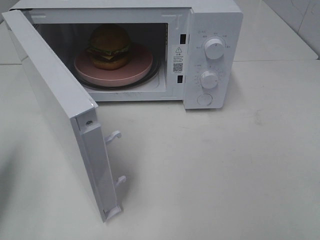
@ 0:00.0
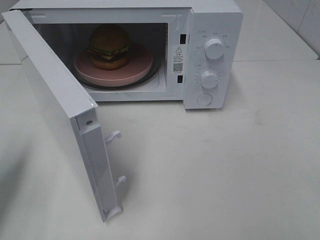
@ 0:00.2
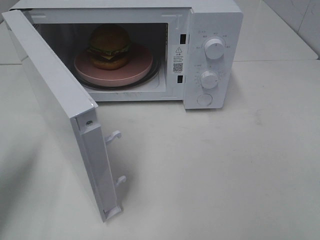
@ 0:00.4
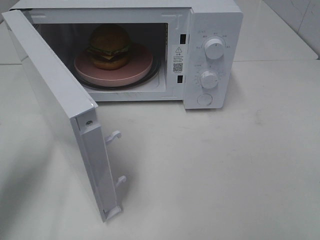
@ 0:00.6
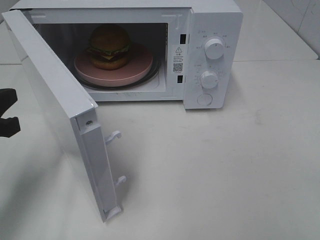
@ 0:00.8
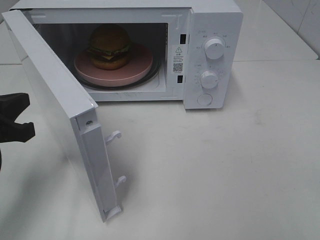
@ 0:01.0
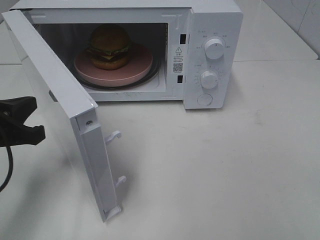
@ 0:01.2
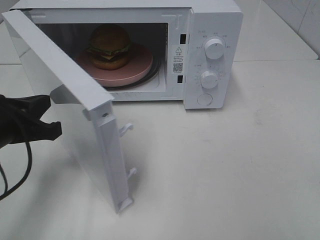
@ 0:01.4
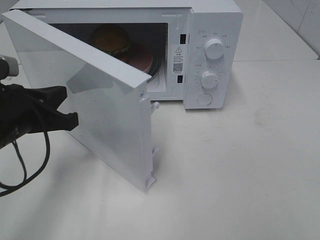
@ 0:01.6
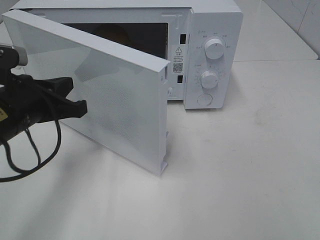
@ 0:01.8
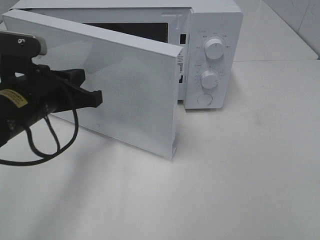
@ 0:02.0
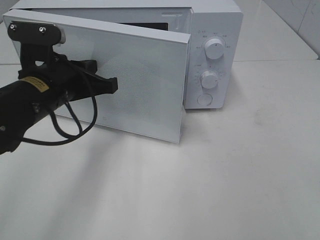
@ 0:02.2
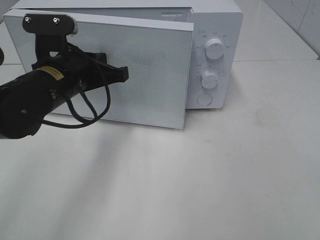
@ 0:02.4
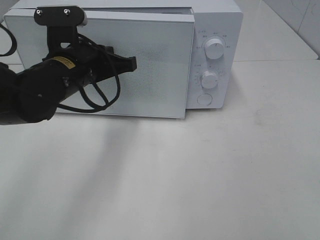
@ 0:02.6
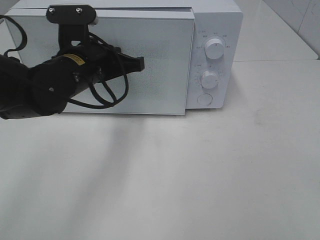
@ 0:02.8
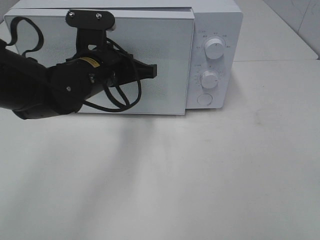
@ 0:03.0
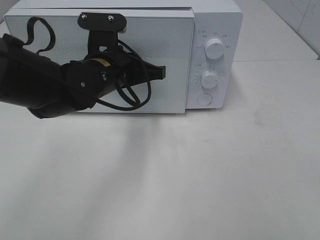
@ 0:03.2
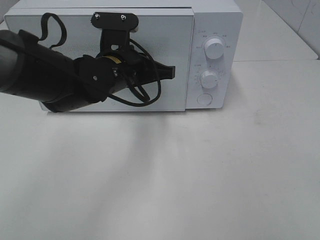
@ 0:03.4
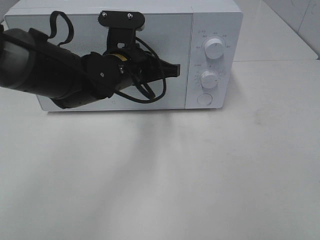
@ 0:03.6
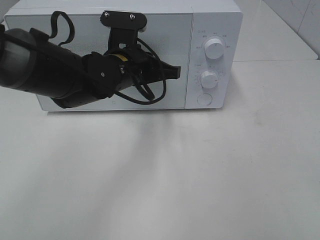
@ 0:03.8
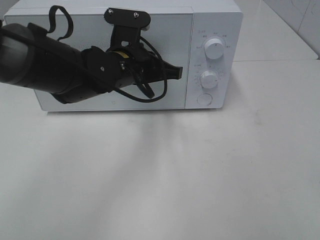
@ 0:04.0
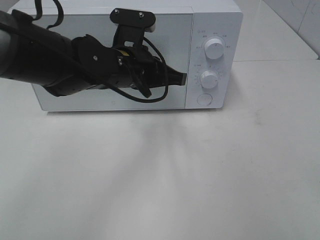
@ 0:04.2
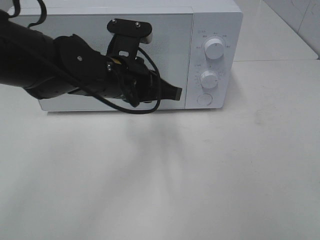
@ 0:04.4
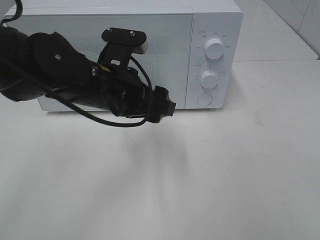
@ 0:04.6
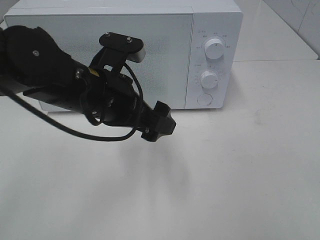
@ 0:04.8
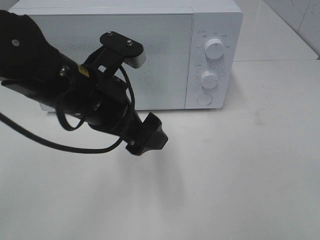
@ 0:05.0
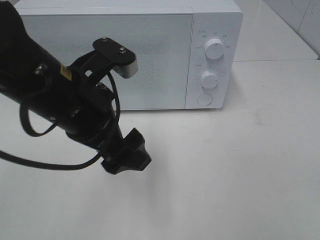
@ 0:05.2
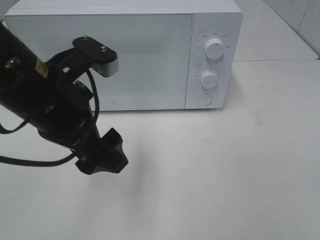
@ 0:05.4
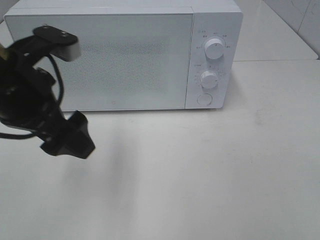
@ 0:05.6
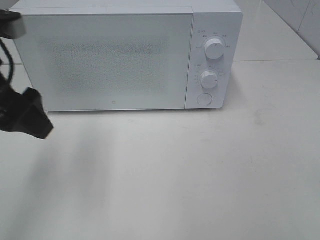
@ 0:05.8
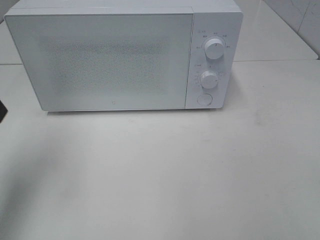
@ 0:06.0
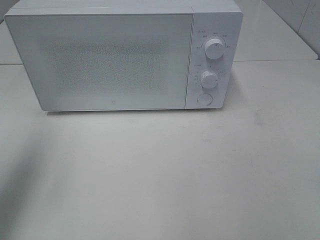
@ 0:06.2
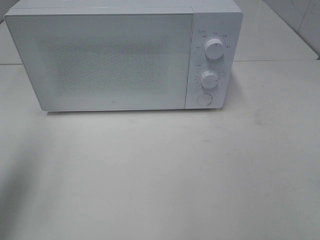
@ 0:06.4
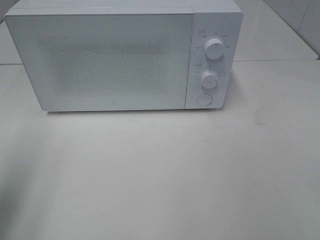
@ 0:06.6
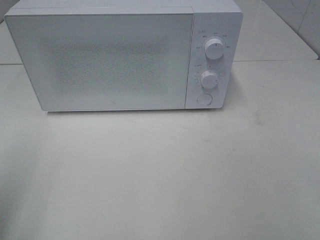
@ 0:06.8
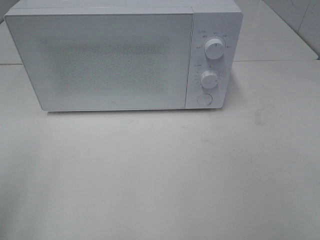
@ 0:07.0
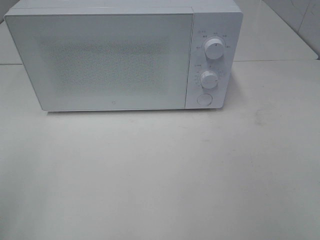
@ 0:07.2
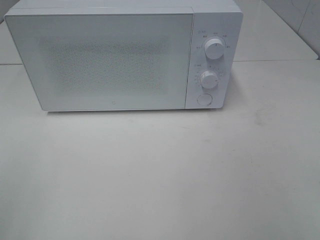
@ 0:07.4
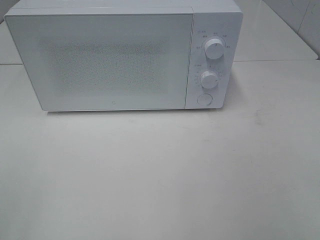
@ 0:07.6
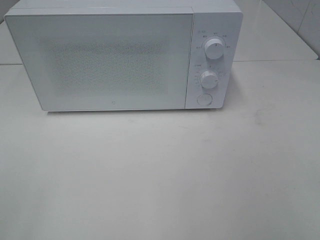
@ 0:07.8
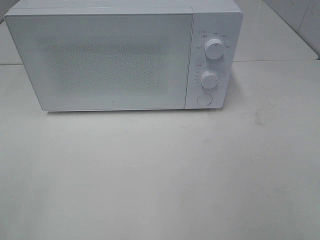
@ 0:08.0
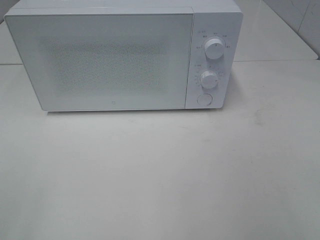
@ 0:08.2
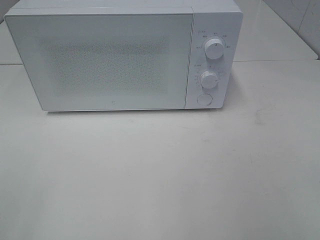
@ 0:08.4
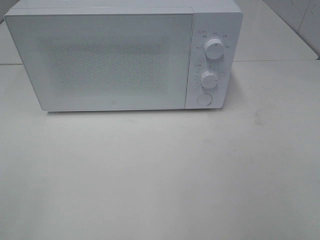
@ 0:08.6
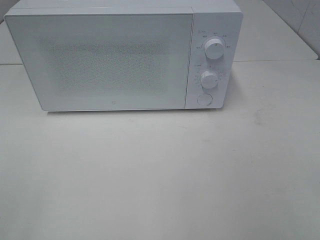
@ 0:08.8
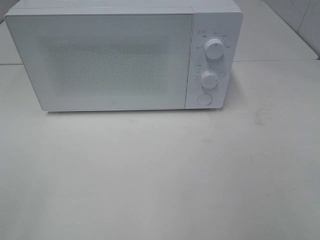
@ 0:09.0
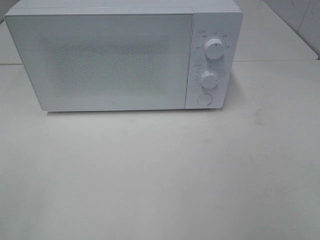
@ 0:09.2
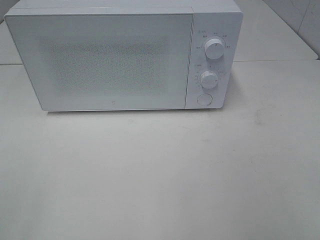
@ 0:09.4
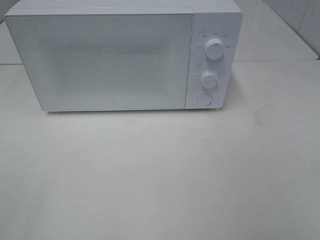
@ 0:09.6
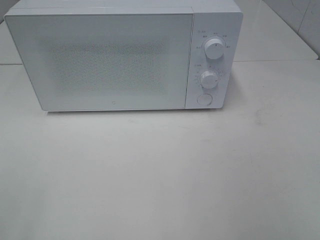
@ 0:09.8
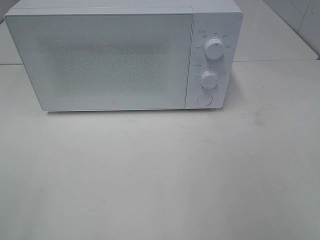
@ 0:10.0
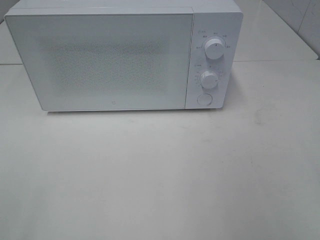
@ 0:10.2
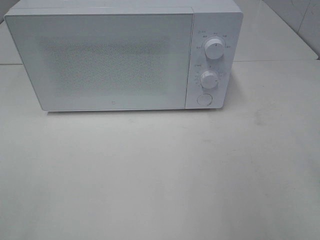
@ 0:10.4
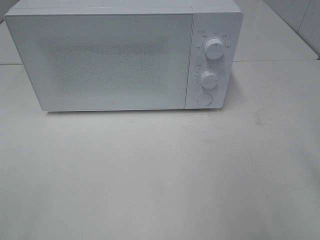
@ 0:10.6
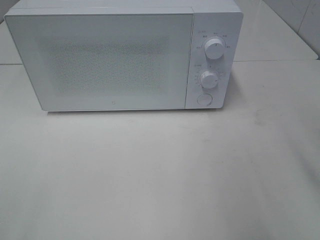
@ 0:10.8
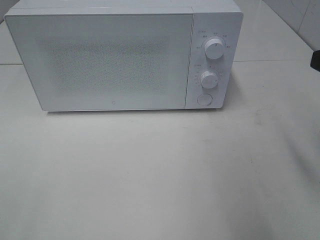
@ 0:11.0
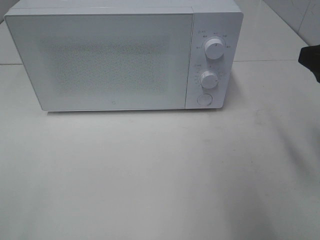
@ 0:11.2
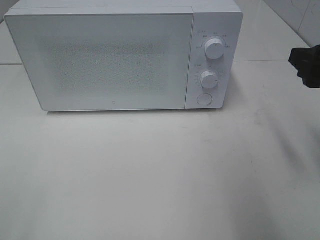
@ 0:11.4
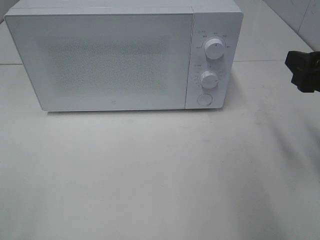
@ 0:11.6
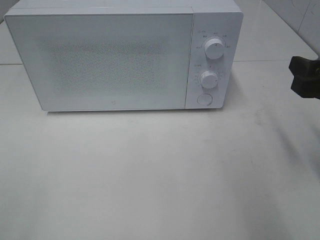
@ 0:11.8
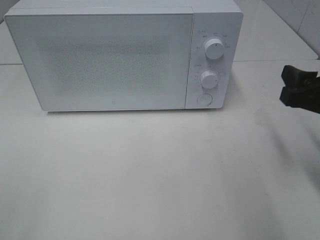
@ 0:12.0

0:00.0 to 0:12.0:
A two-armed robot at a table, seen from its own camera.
Task of the whole recording: Heat the burger.
Step, 0:00.0 to 0:04.6: Left hand: close the microwave door.
0:00.0 to 0:01.6: The left gripper travels to the right and forward by about 15 cm.
0:01.6 to 0:03.0: The left gripper heads to the right and forward, covering some 15 cm.
0:04.4 to 0:06.0: The left gripper is displaced to the left and upward by some 25 cm, and opens its fingers.
0:06.0 to 0:07.6: The left gripper moves backward, some 20 cm.
0:07.6 to 0:09.0: Neither gripper changes place.
0:10.4 to 0:12.0: The right gripper heads downward and forward, covering some 15 cm.

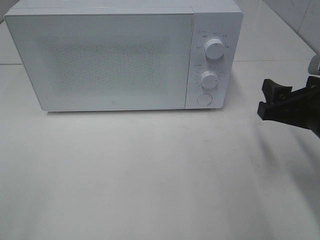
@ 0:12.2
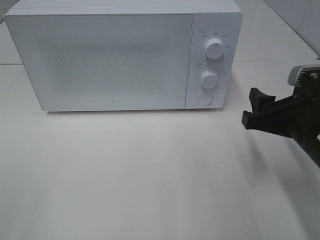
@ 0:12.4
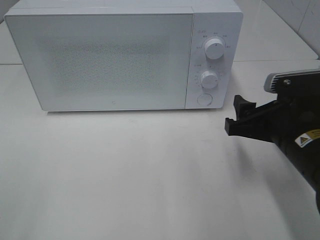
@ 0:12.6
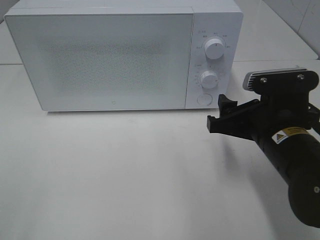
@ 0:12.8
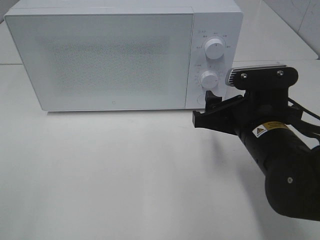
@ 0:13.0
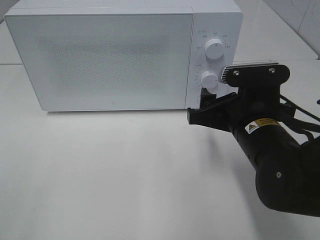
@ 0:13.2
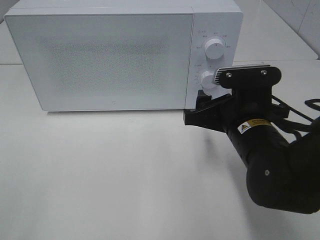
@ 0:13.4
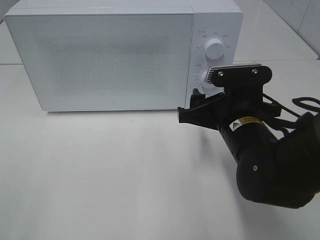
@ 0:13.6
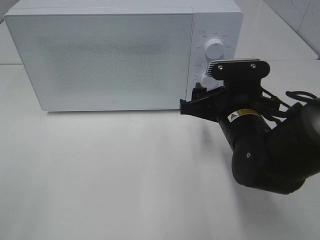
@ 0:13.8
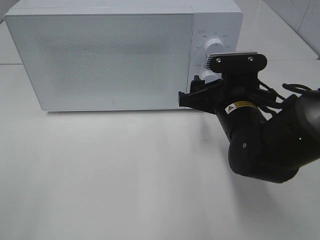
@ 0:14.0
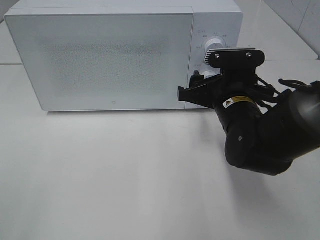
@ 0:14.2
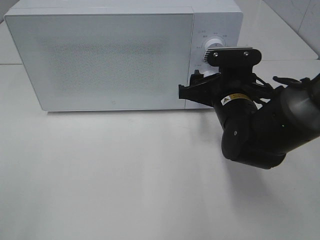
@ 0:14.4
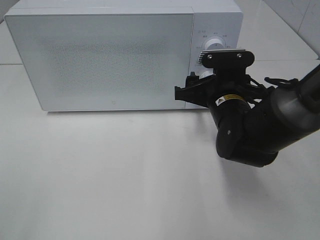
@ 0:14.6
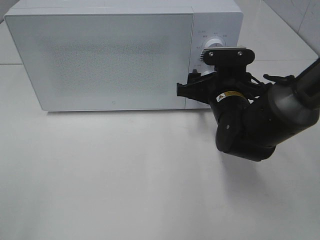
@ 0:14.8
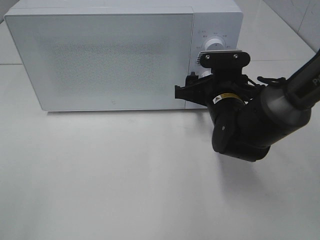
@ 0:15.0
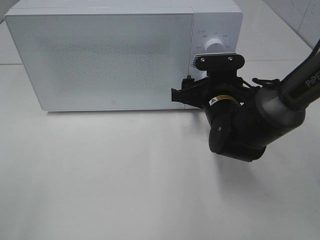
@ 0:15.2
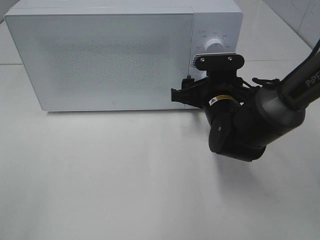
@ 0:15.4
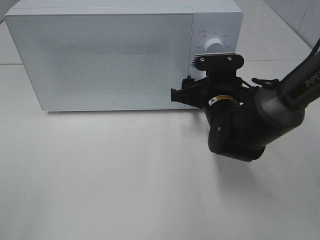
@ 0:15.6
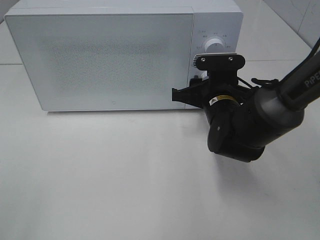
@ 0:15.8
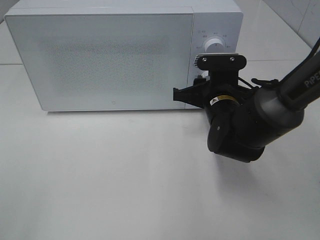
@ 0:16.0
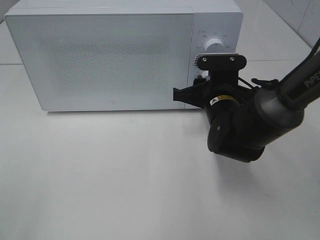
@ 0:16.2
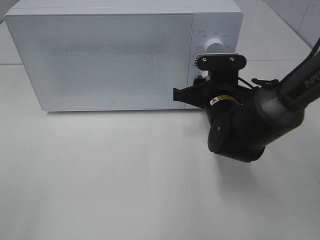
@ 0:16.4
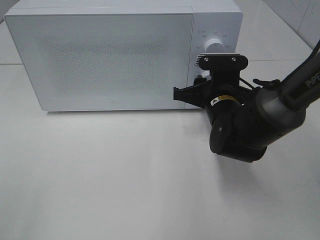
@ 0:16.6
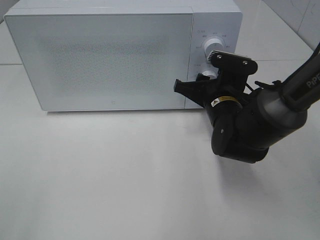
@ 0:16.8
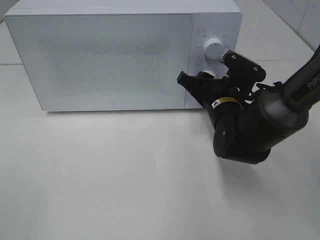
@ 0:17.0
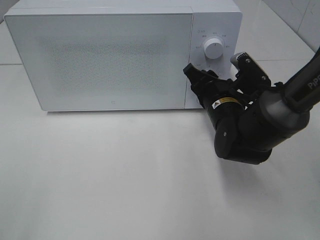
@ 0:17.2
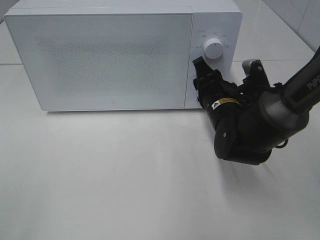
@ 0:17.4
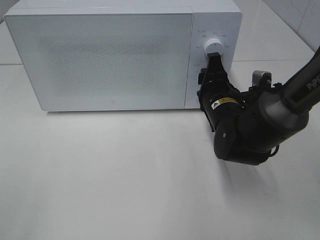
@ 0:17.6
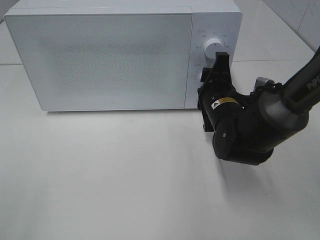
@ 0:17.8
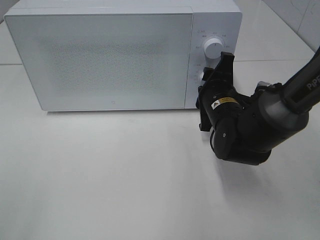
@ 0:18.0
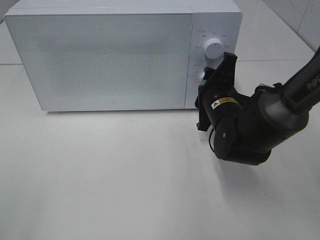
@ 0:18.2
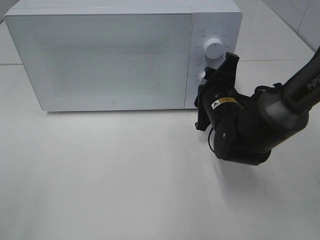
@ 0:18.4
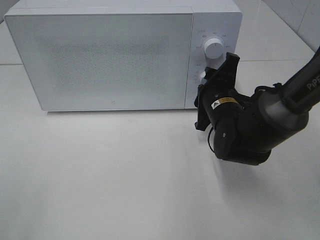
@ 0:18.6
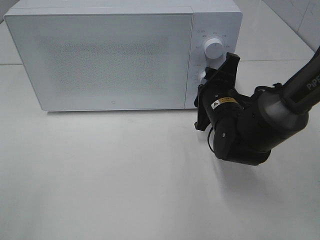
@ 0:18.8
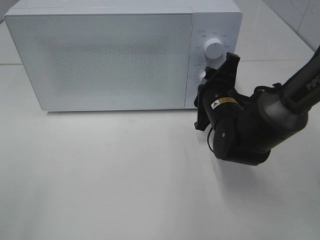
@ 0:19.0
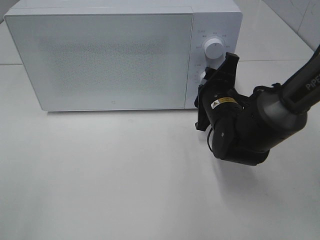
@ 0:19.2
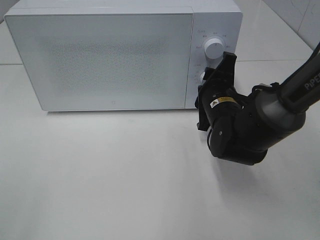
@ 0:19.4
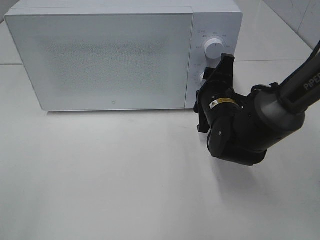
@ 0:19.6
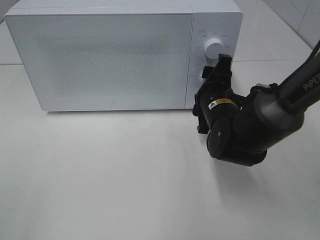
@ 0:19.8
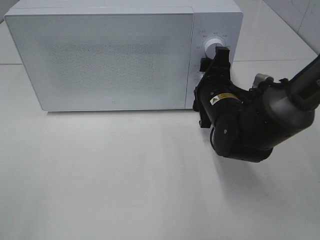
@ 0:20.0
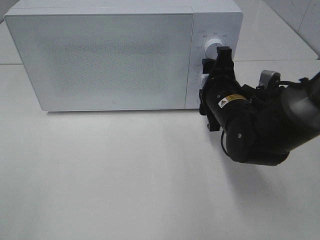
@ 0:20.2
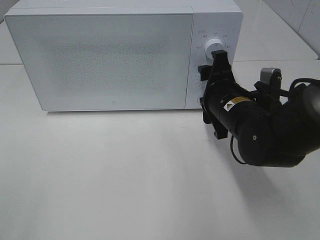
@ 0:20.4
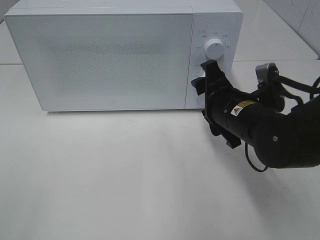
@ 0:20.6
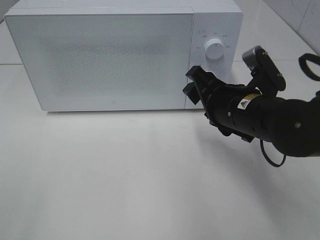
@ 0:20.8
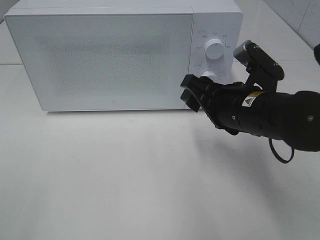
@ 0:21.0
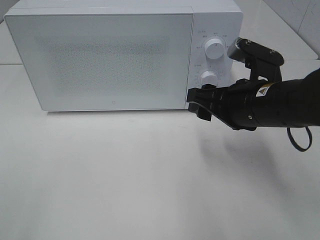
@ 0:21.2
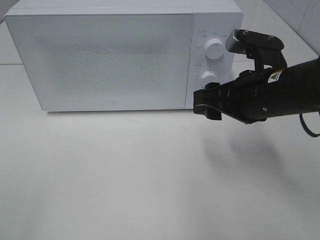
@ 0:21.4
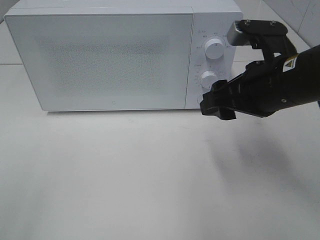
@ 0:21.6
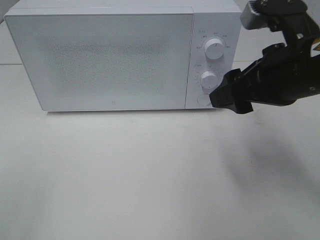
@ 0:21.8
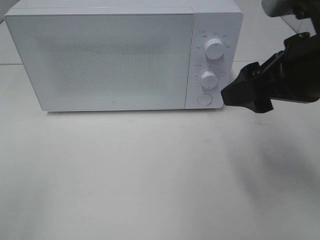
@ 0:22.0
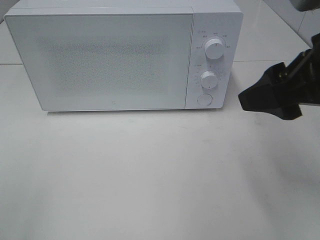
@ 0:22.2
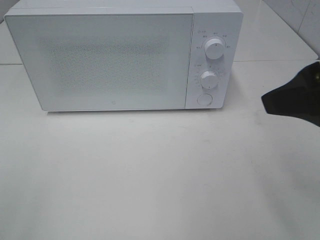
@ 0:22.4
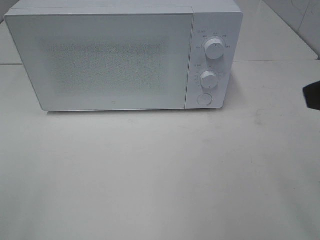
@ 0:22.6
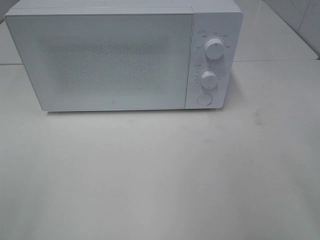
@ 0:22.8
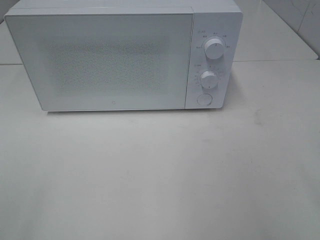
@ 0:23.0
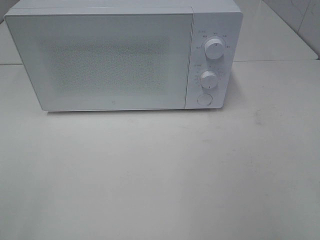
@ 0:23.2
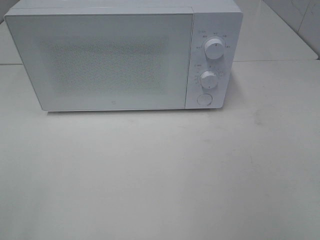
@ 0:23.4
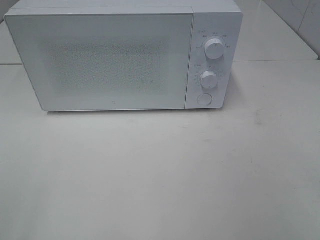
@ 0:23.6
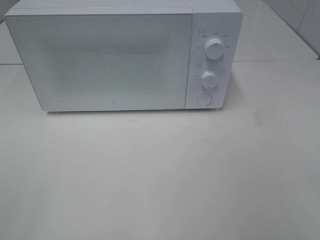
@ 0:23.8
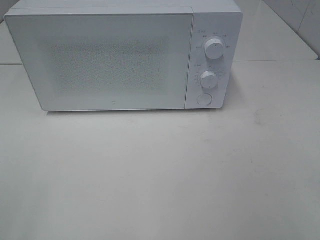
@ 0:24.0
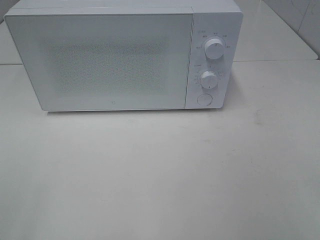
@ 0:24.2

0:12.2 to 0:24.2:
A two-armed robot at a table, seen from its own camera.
Task of the whole recording: Heat the burger.
Step, 0:12.2 to 0:20.4: Right hand: twist timer button.
0:12.2 to 0:13.8: The right gripper moves to the left and forward, roughly 10 cm.
0:13.8 to 0:15.2: The right gripper shifts some 5 cm forward.
0:15.2 to 0:16.6: The right gripper closes its fingers.
0:18.2 to 0:19.8: The grippers move only a little.
0:19.8 to 0:21.2: The right gripper is displaced backward and upward by some 10 cm.
0:21.2 to 0:22.6: The right gripper travels upward, backward and to the right by some 20 cm.
